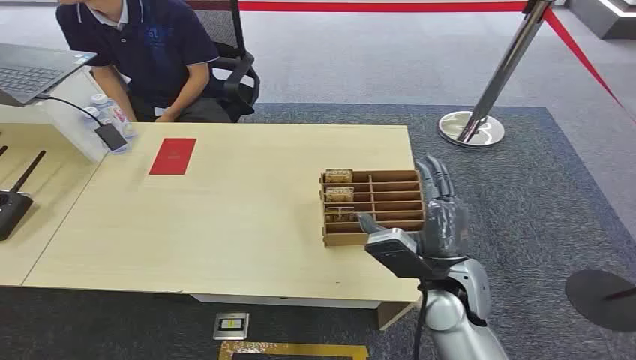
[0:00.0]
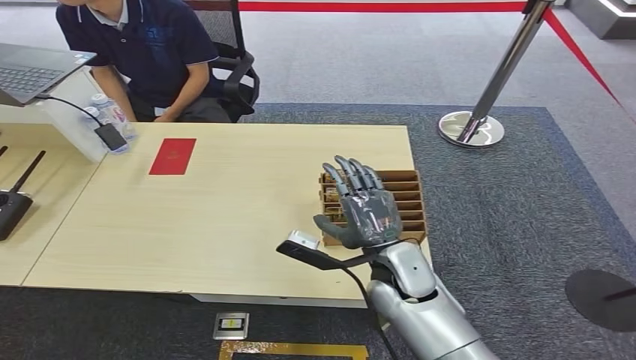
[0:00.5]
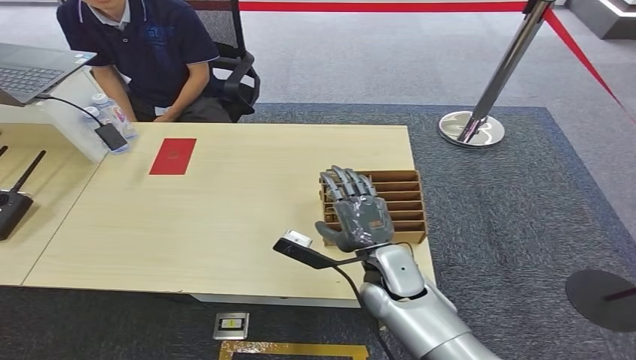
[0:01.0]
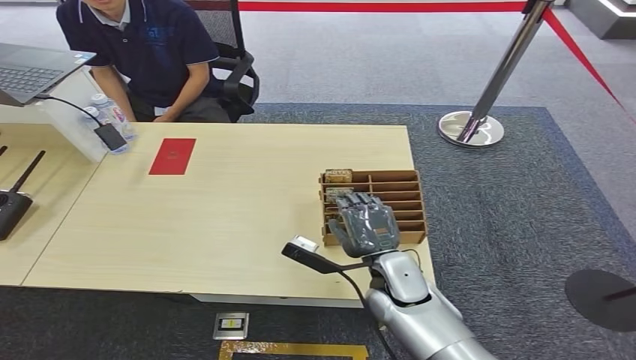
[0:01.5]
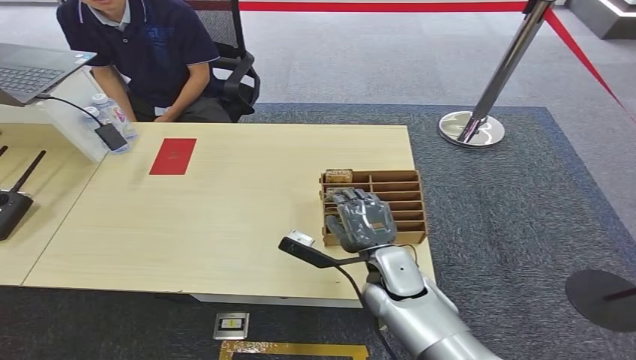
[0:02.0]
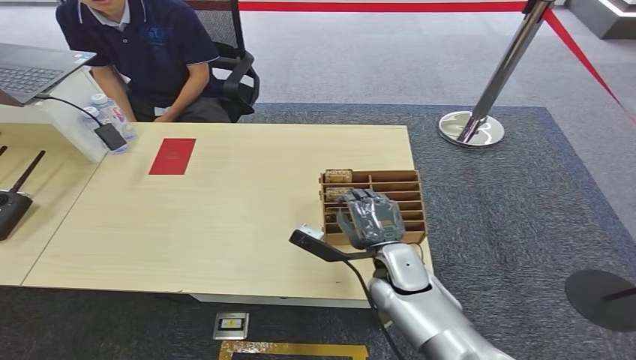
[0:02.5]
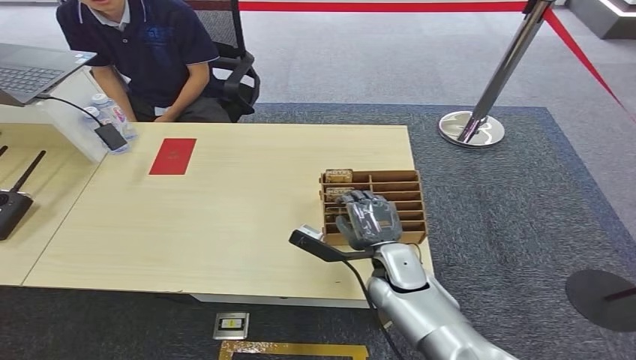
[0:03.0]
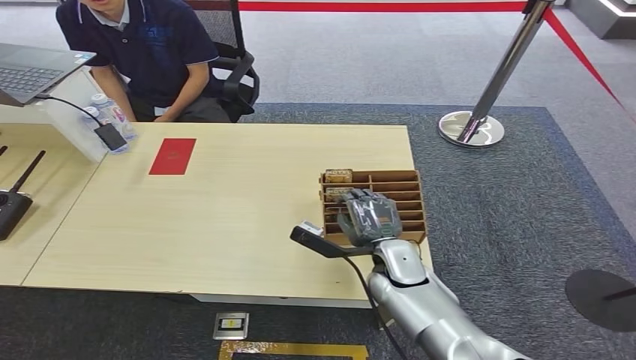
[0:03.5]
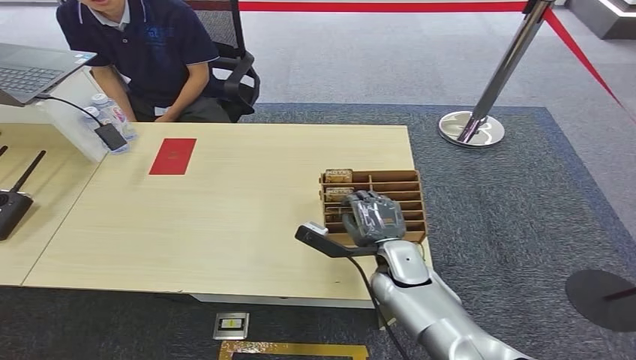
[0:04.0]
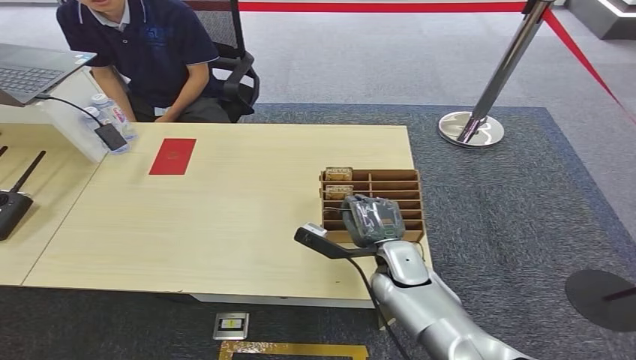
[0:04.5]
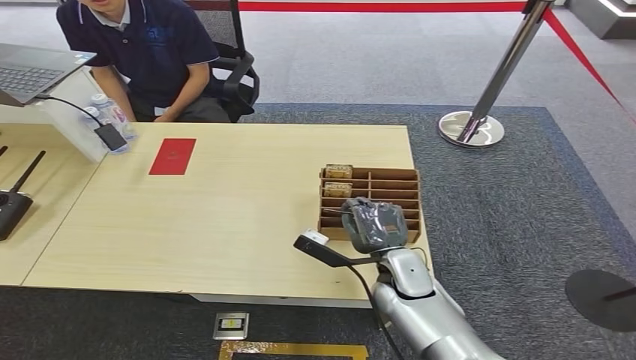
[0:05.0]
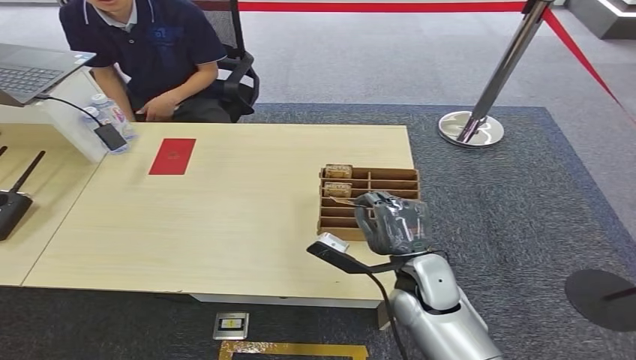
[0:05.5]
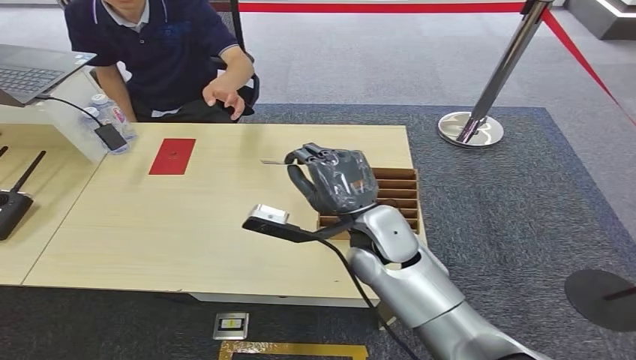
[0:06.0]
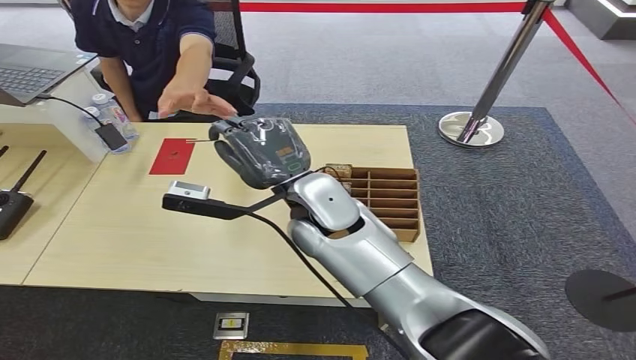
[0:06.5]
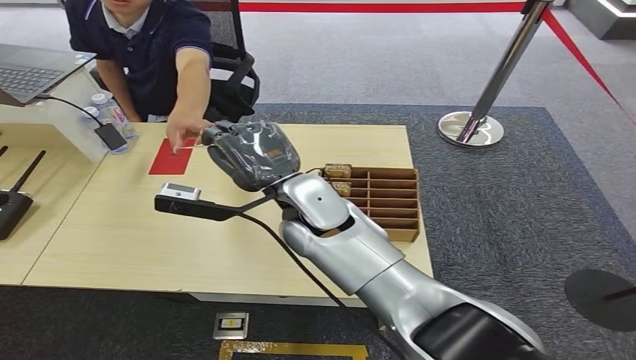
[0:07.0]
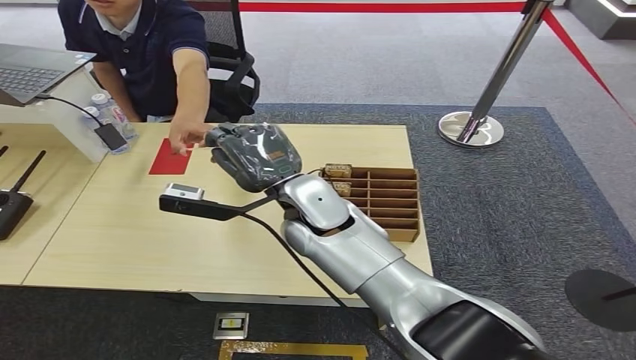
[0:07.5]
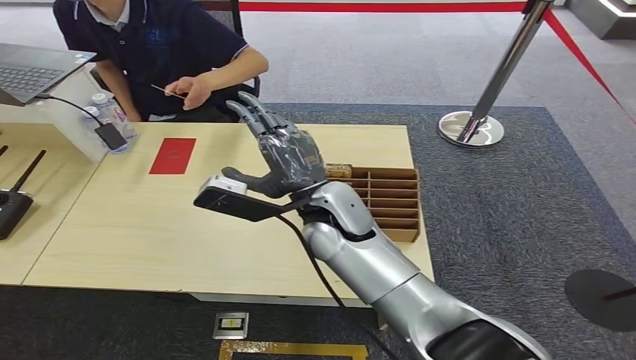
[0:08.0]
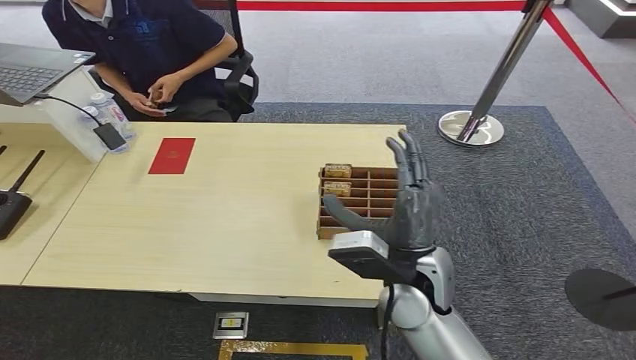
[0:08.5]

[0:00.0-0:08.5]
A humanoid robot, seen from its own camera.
Step, 0:00.0 to 0:05.0: Pick up the key card from the card box.
Step, 0:05.5 to 0:08.5: Hand the key card to the target.
0:02.0 to 0:04.0: The hands move only a little.
0:04.0 to 0:06.5: The right hand goes roughly 25 cm upward and to the left.
